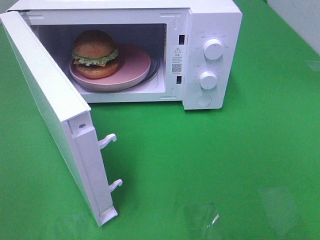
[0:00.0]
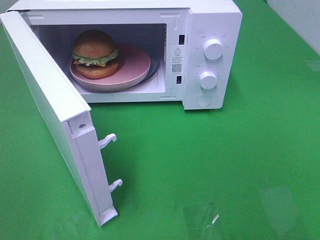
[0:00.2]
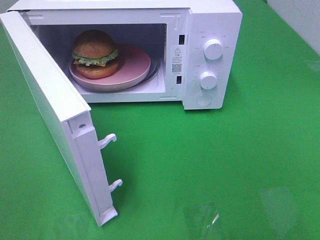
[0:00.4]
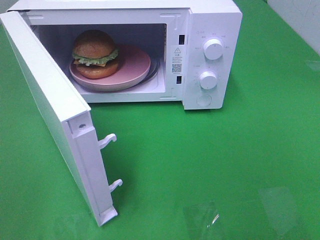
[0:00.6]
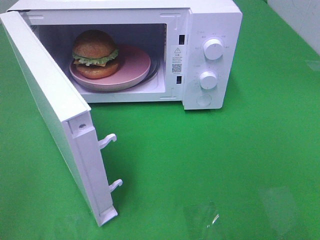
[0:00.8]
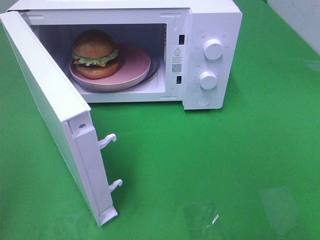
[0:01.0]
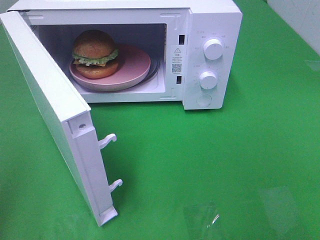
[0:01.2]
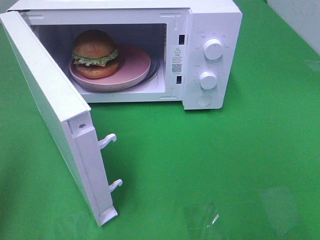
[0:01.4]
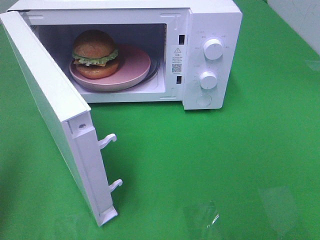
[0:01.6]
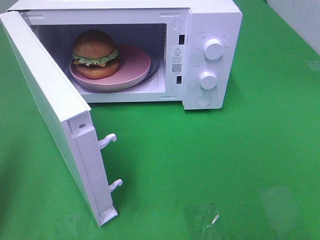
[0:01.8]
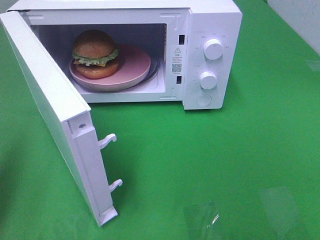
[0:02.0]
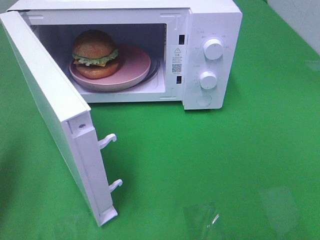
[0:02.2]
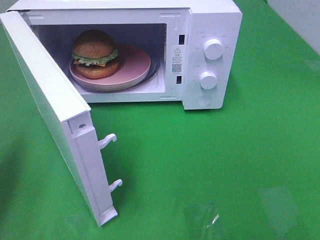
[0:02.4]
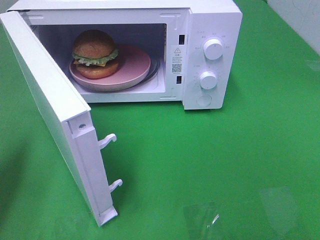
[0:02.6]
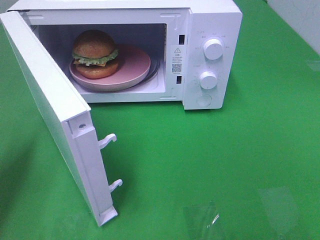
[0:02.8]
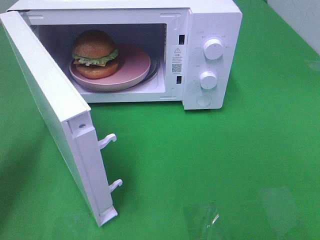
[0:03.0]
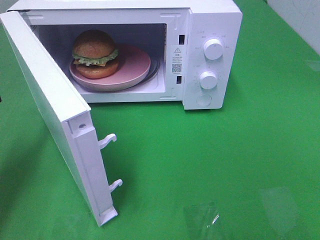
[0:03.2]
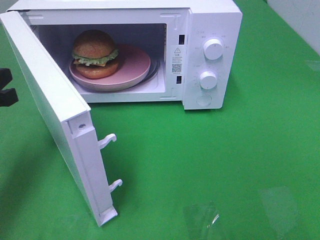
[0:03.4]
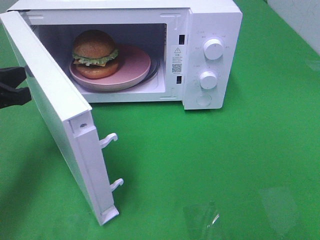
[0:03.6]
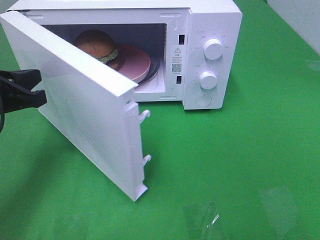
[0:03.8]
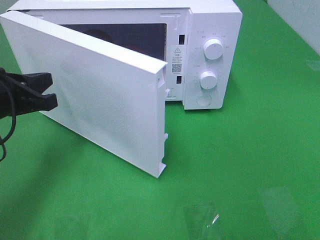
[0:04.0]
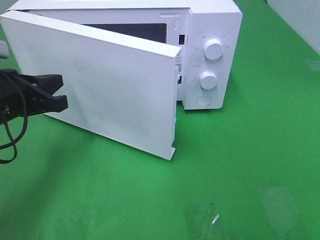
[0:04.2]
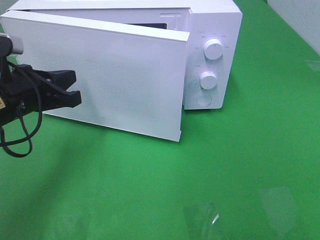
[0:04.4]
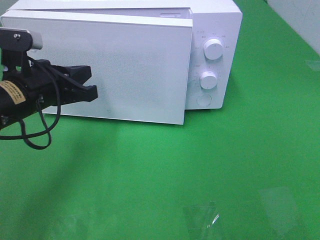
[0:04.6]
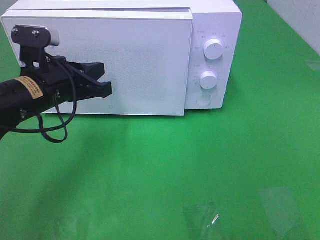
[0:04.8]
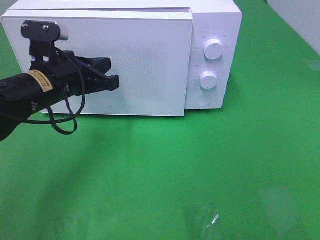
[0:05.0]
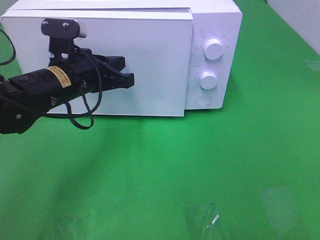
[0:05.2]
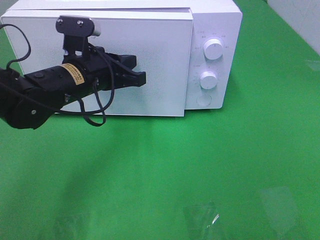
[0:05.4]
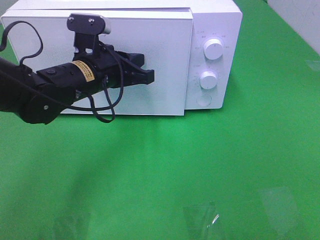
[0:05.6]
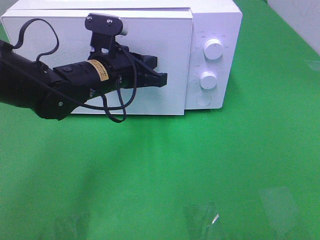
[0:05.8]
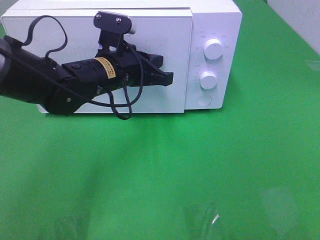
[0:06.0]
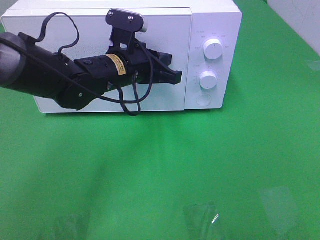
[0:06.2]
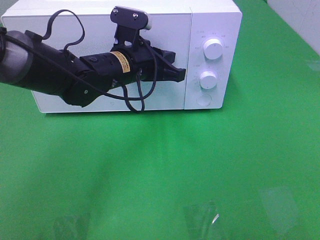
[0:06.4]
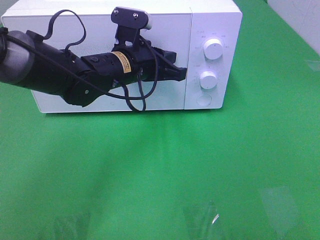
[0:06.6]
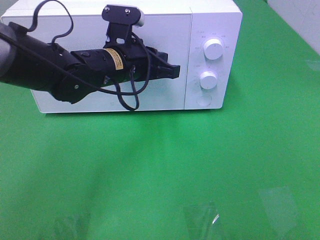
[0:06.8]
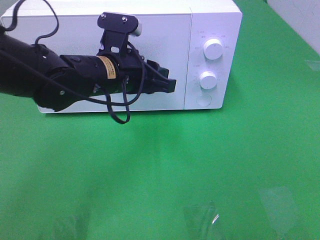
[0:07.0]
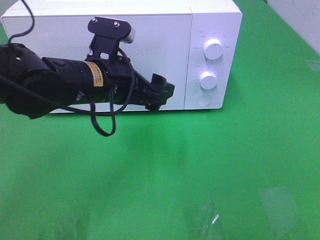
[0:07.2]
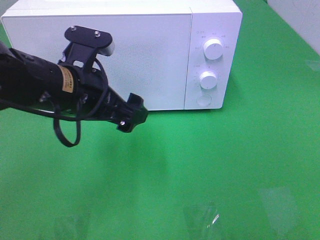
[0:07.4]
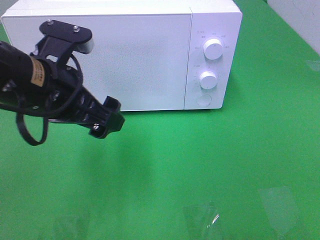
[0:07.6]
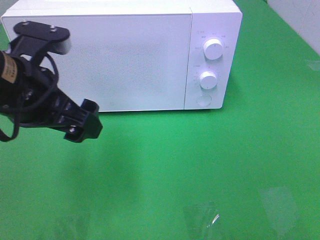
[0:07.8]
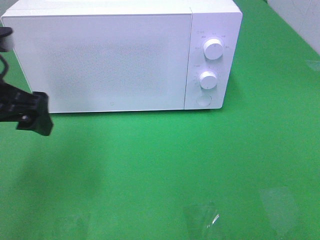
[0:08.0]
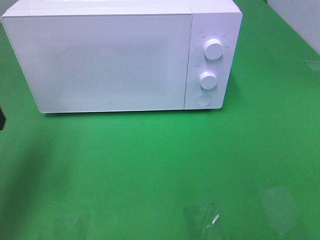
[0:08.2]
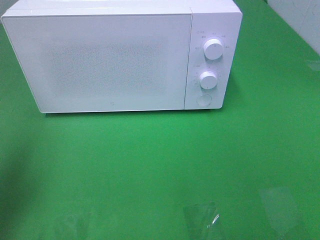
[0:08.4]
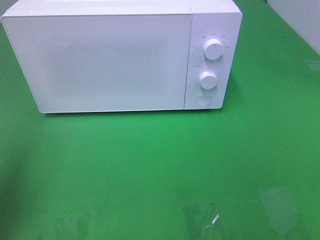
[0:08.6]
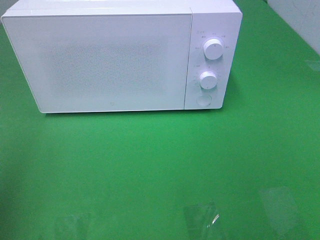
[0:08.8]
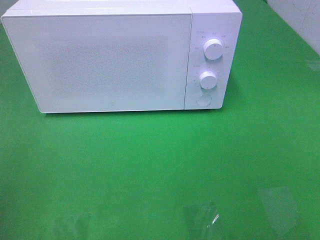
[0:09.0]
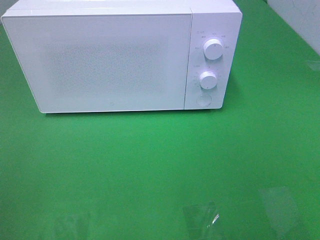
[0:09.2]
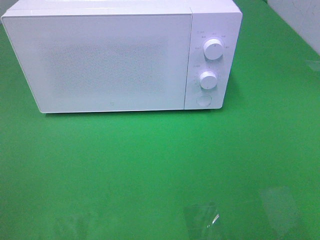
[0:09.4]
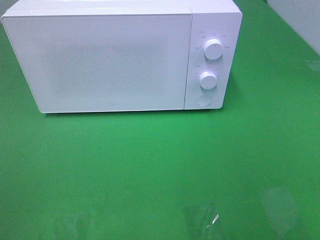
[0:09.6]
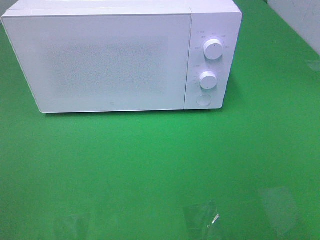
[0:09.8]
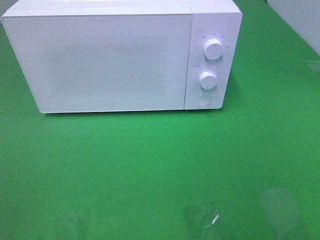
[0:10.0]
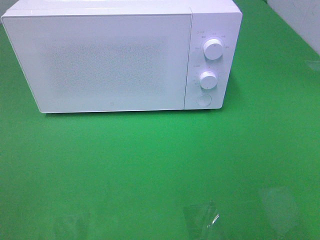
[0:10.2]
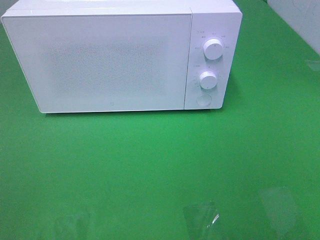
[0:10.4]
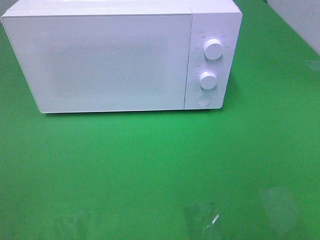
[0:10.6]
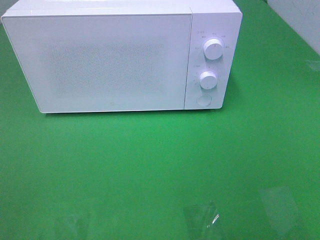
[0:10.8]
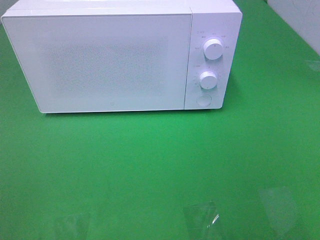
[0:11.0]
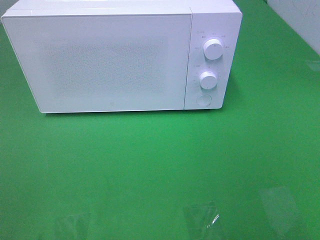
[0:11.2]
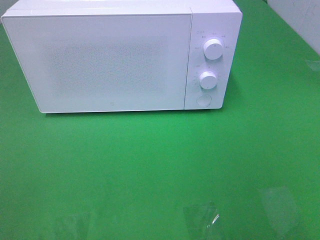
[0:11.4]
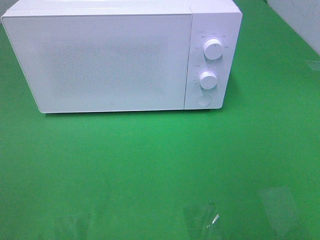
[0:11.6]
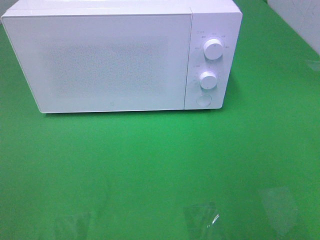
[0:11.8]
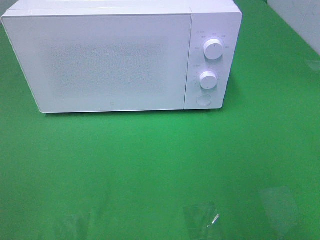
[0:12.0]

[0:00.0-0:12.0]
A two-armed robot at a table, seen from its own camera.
Task of the whole recording: Heat the burger.
Step, 0:00.0 to 0:06.8: Left hand: close the microwave door.
0:00.0 to 0:01.6: The left gripper heads forward, covering roughly 10 cm, and closes its fingers.
0:01.6 to 0:03.0: The left gripper travels forward and downward by about 15 cm.
0:03.0 to 0:04.4: The left gripper heads to the right, covering roughly 10 cm.
0:04.4 to 0:06.0: The left gripper is displaced to the right and forward by approximately 15 cm.
0:06.0 to 0:07.6: The left gripper shifts about 15 cm backward, to the left and upward, and opens its fingers.
0:07.6 to 0:09.0: The left gripper moves to the left and backward, approximately 25 cm.

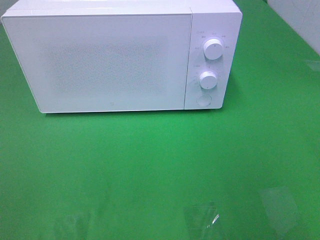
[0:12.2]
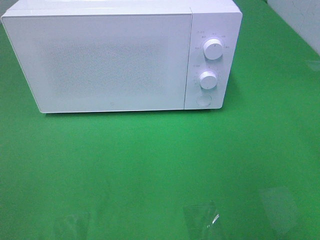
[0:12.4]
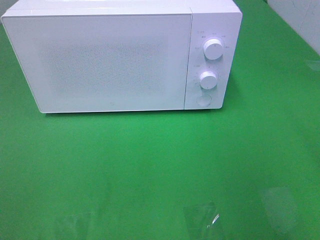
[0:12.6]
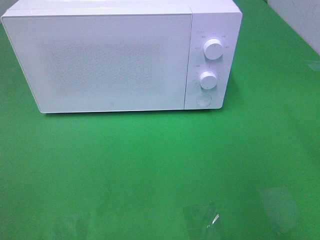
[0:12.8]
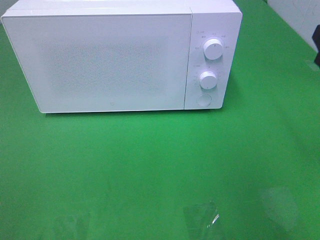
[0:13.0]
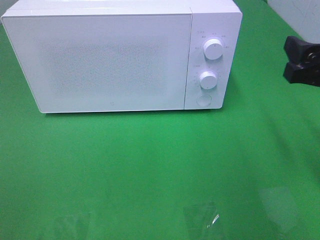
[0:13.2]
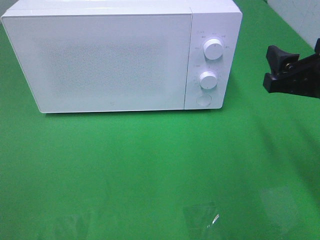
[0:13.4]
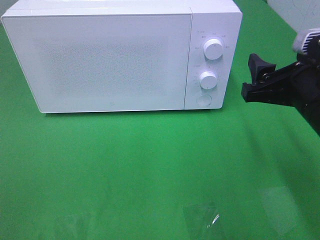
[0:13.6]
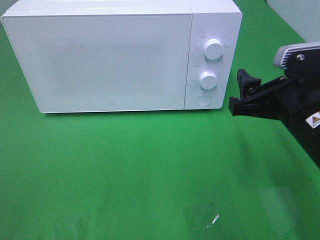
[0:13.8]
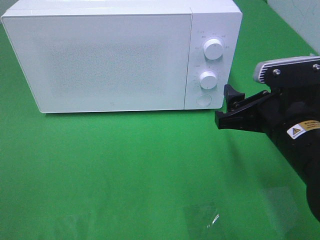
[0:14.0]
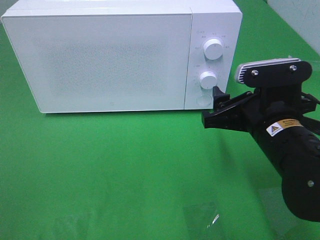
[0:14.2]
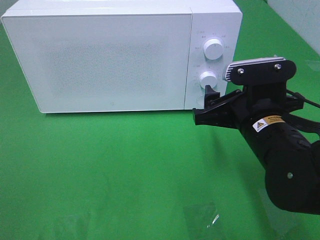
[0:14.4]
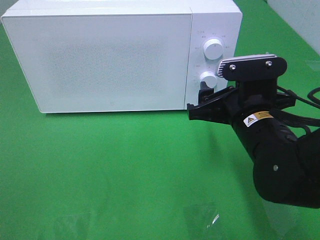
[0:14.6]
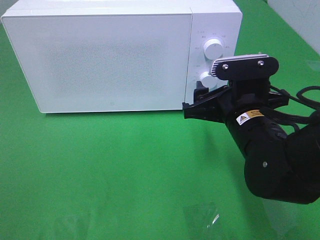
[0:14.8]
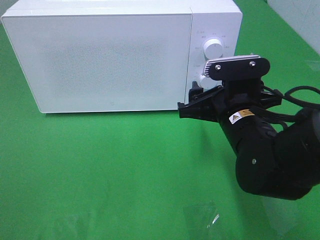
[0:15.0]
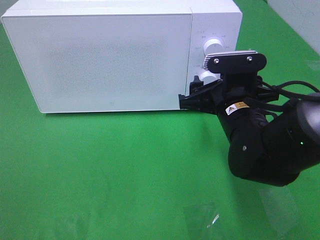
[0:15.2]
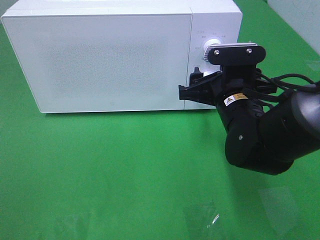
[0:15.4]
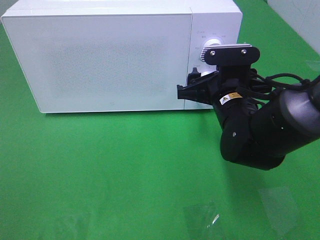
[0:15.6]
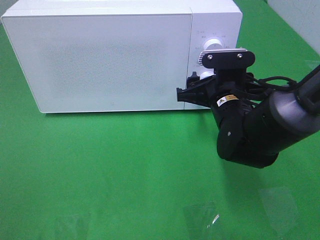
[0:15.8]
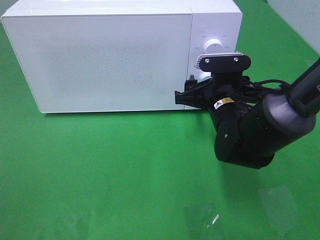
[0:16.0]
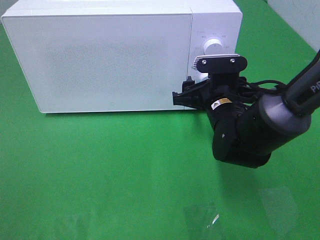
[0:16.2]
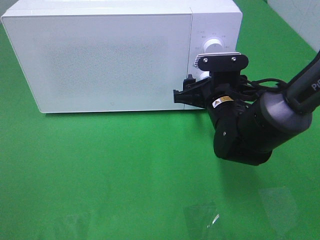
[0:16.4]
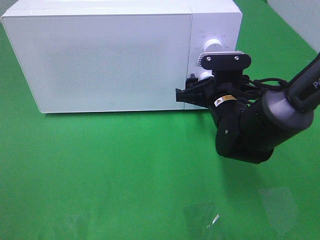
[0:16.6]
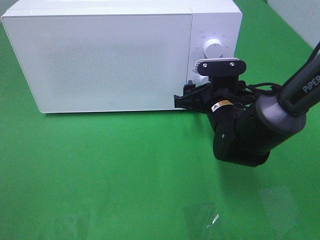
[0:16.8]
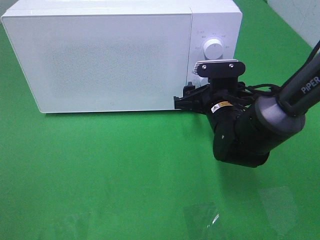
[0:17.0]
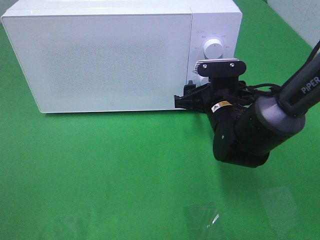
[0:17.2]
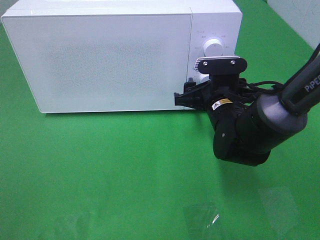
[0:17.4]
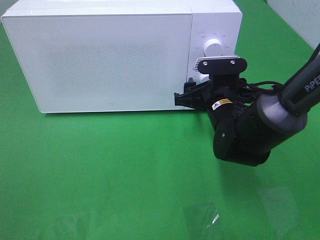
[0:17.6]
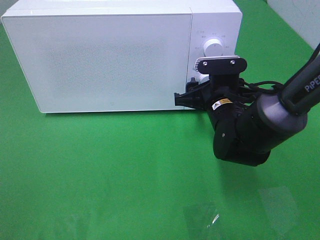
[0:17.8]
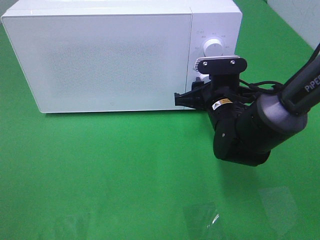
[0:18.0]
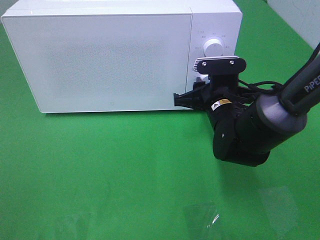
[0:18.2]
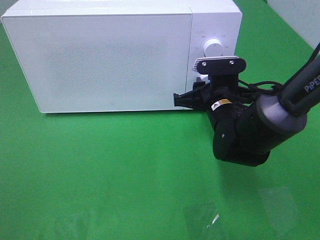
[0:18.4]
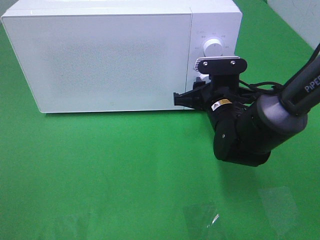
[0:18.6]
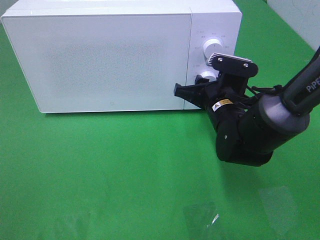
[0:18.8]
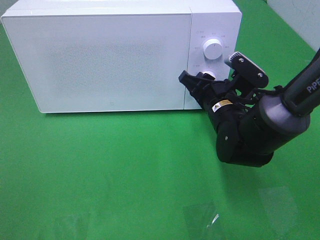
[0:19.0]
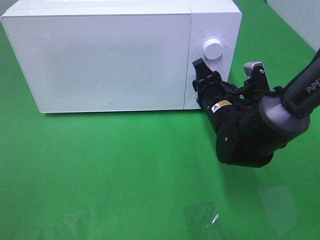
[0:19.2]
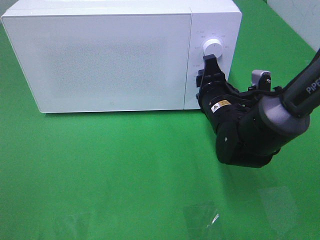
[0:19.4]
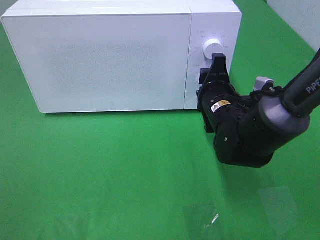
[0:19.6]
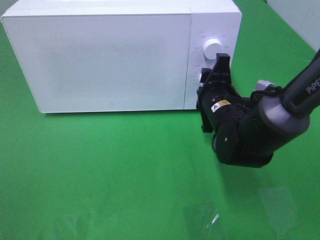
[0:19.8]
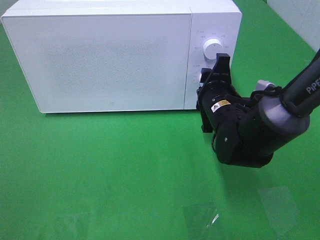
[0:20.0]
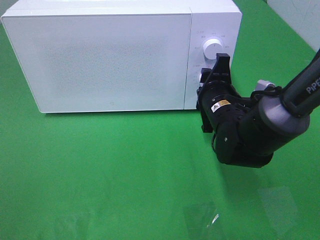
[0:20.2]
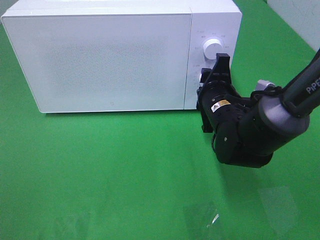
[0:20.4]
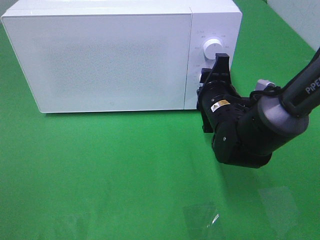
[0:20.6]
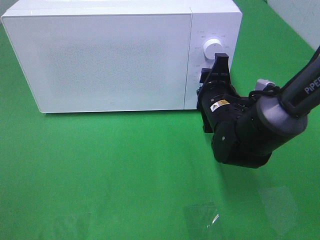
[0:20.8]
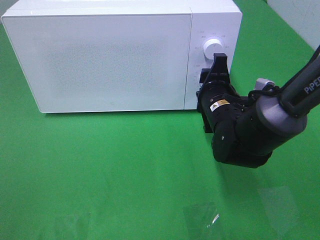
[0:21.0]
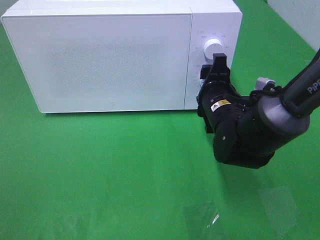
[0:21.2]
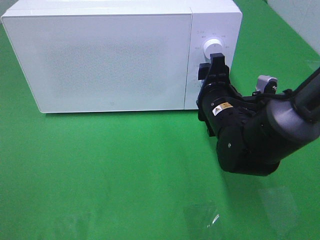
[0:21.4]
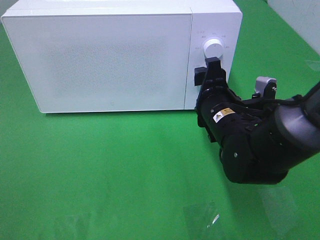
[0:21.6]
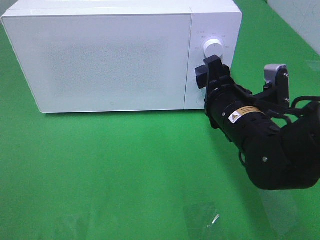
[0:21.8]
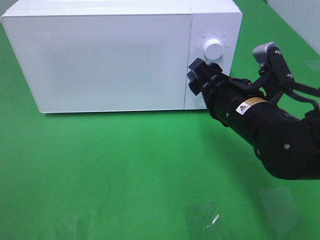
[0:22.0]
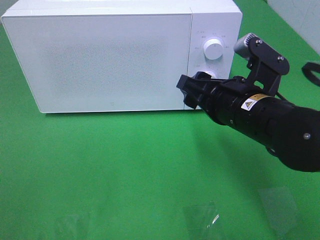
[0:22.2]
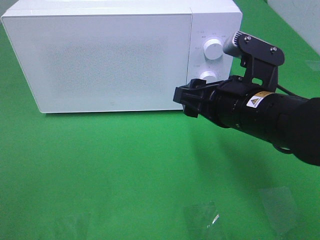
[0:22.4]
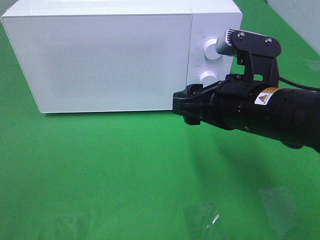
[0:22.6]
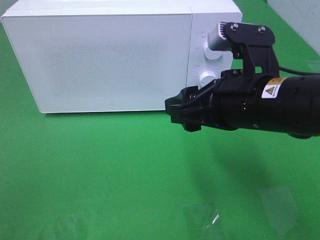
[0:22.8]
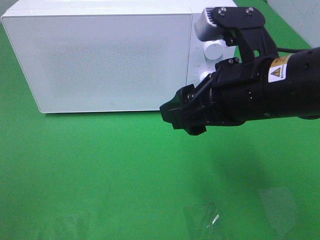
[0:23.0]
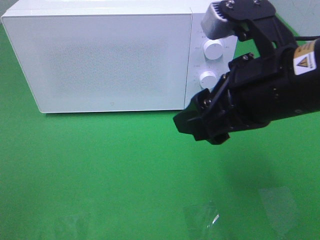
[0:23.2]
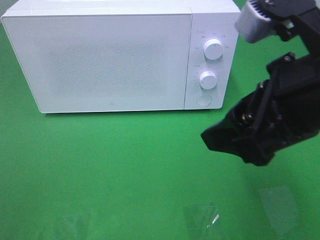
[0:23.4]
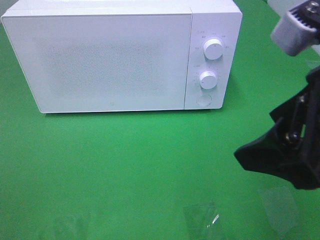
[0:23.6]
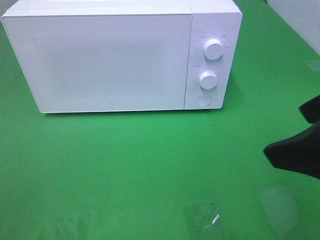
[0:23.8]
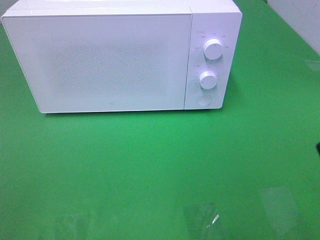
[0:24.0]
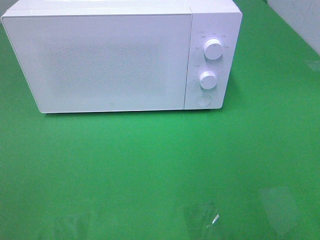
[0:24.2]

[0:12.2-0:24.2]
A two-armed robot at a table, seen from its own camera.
Task of the whole recording: Heat the burger.
Step, 0:12.2 to 0:21.0: Right hand: twist timer button.
0:12.2 to 0:13.8: The right gripper moves to the left, downward and forward, some 15 cm.
0:13.8 to 0:15.2: The right gripper shifts some 10 cm to the left and forward.
0:15.2 to 0:16.6: The right gripper goes some 5 cm forward.
0:16.6 to 0:18.2: The right gripper closes.
0:19.8 to 0:21.2: The grippers move only a little.
0:21.2 to 0:22.6: The right gripper is displaced backward and upward by roughly 15 cm.
0:22.6 to 0:24.2: The right gripper moves backward, to the right and upward, roughly 25 cm.
